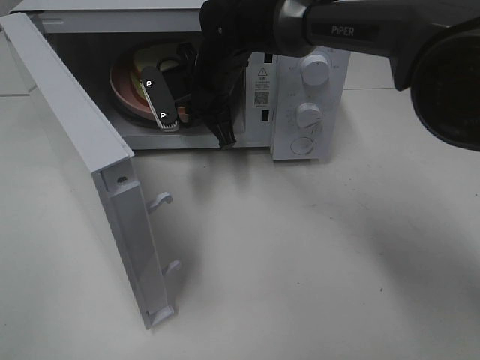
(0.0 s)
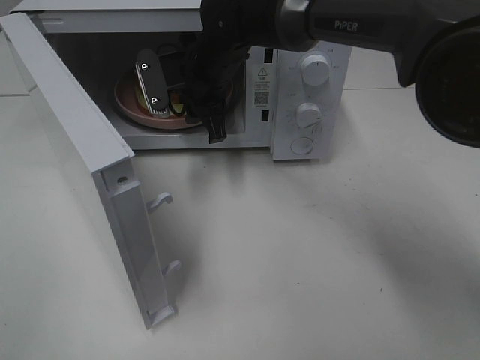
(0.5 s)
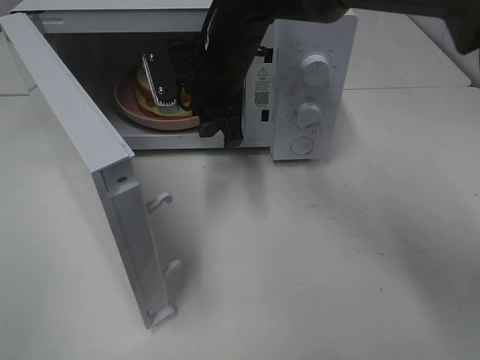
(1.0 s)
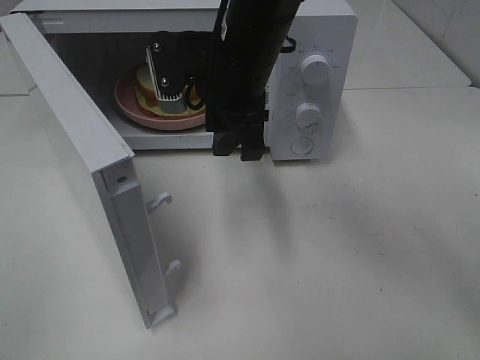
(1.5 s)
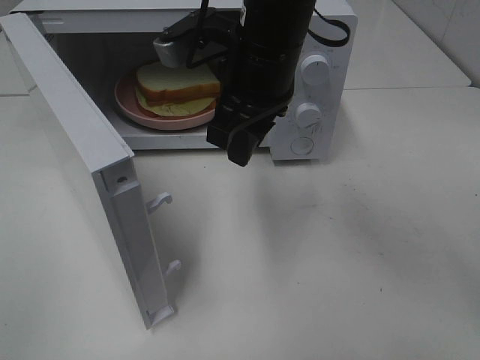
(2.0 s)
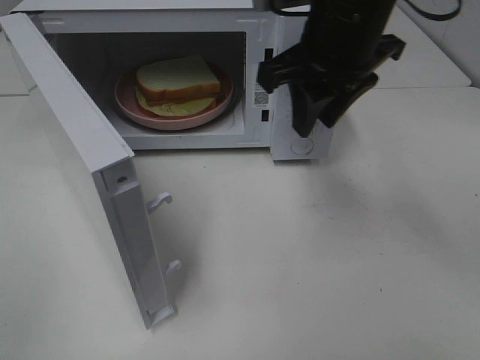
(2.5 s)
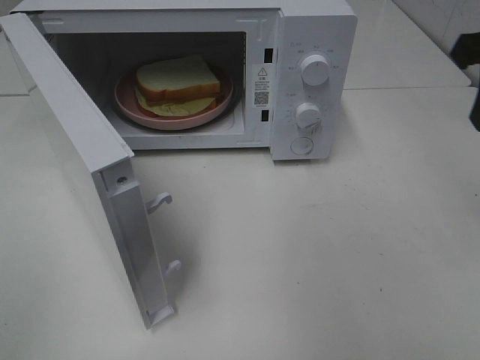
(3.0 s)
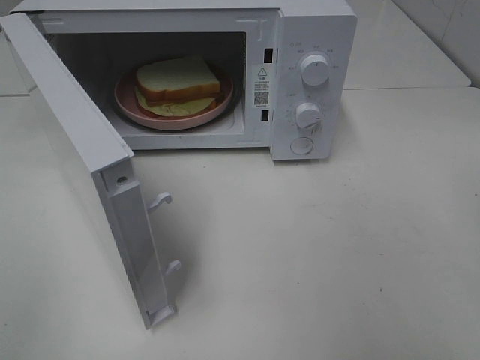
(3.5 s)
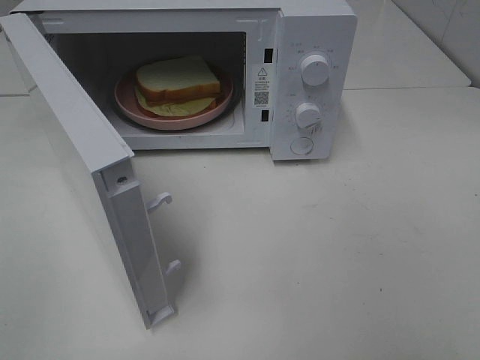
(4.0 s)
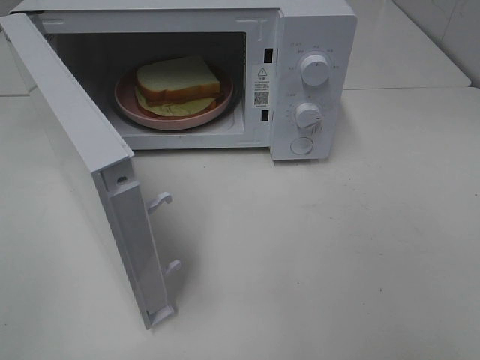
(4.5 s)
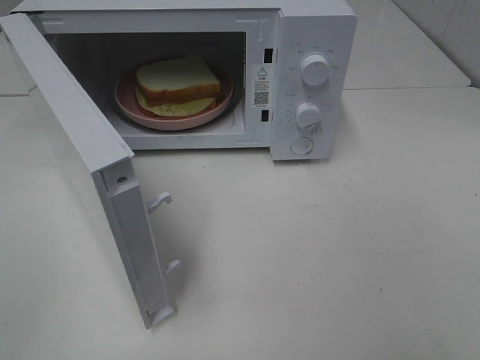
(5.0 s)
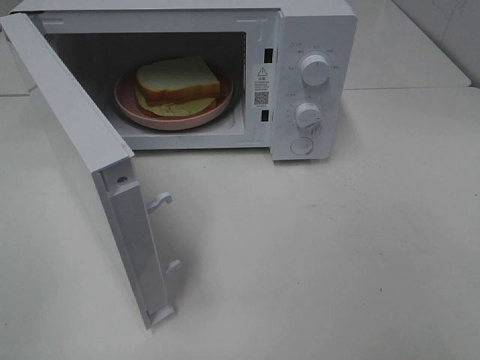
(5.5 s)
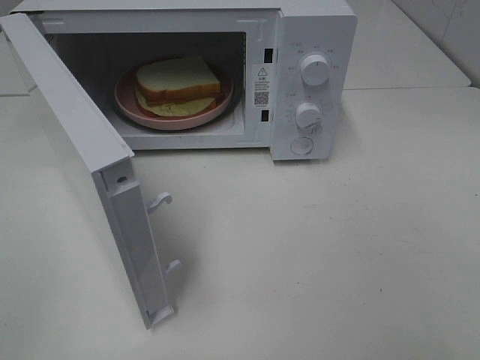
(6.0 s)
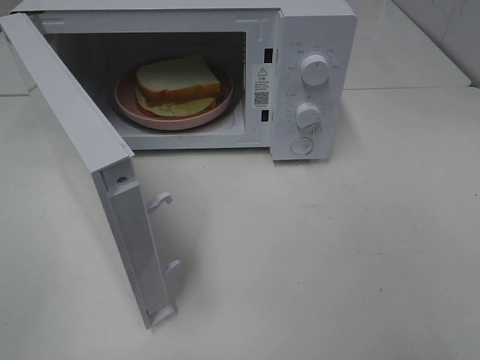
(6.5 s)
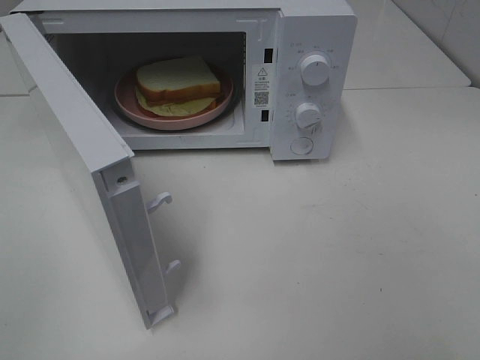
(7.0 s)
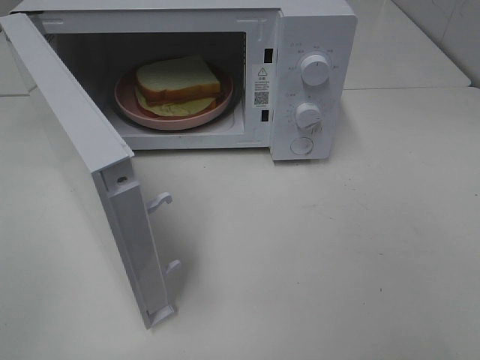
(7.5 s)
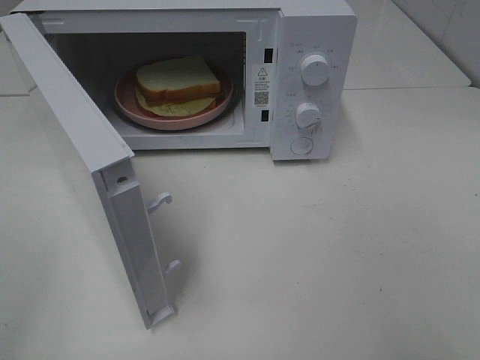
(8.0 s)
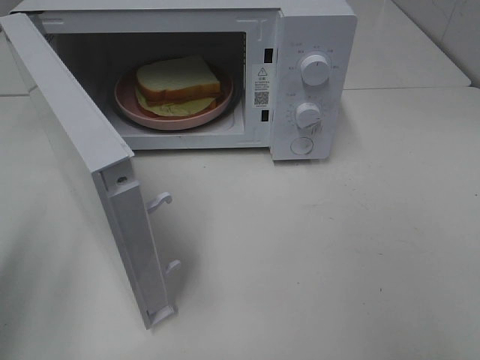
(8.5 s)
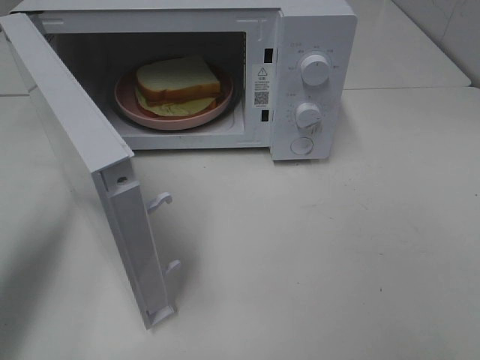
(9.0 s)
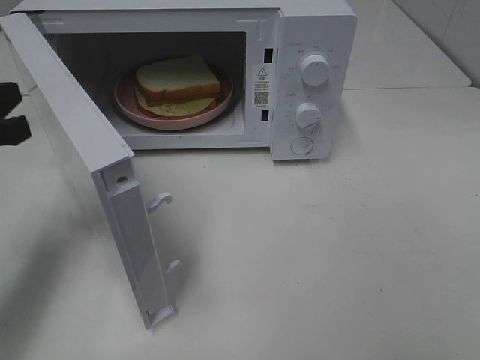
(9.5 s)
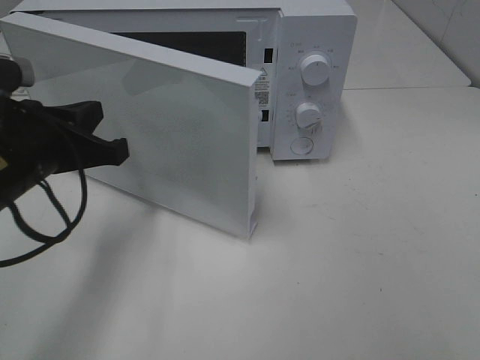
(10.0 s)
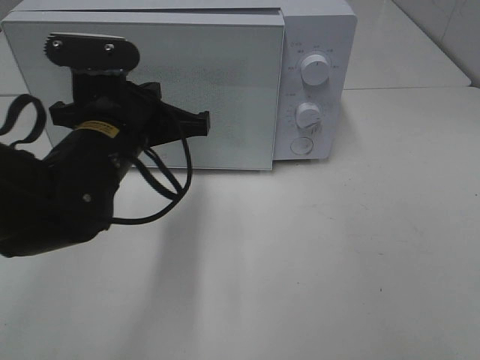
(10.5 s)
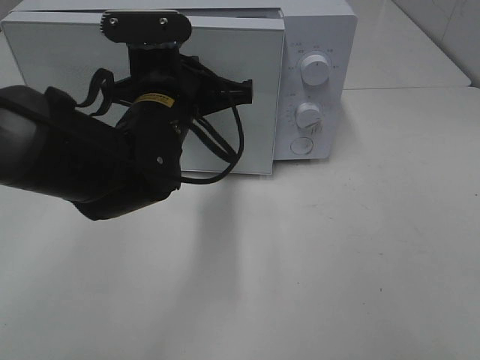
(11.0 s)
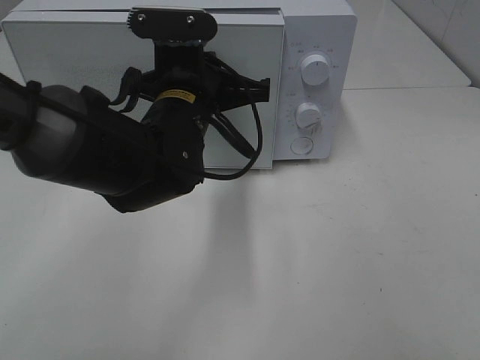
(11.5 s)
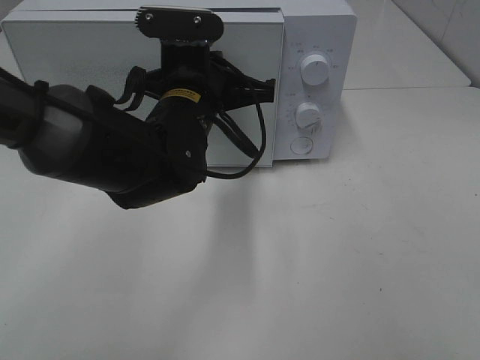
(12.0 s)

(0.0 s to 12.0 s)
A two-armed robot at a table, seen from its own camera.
Task of the whole recording: Heat Sandwich.
0.0 s - 2.0 s: The right gripper shifts approximately 15 cm backward, upward and to the right, and opens.
2.0 s - 4.0 s: The right gripper shifts approximately 35 cm to the right and backward.
8.0 s - 10.0 s: The left gripper moves forward, downward and to the right, roughly 30 cm, and closes.
10.0 s - 12.0 s: The left gripper is displaced to the right and forward by some 15 cm.

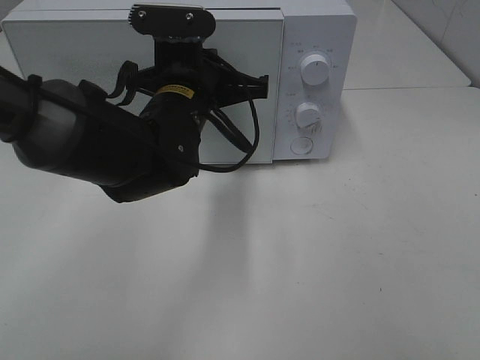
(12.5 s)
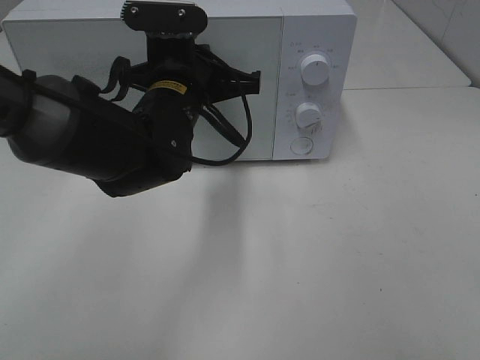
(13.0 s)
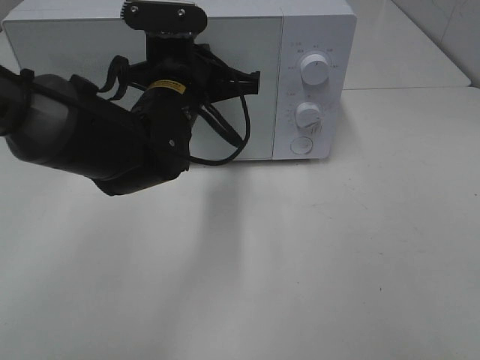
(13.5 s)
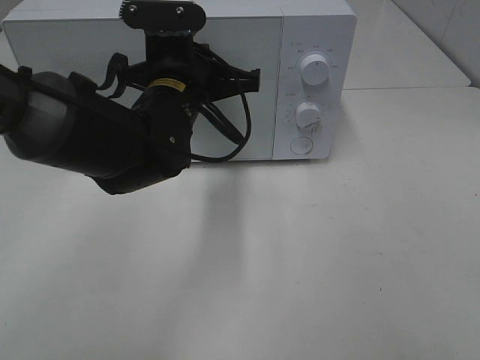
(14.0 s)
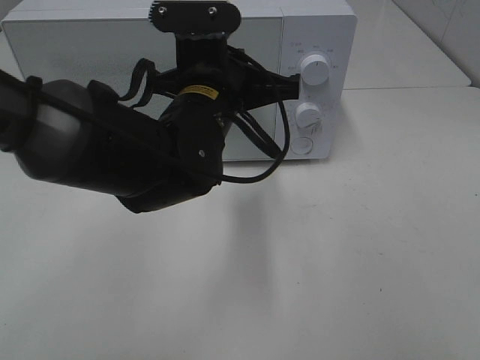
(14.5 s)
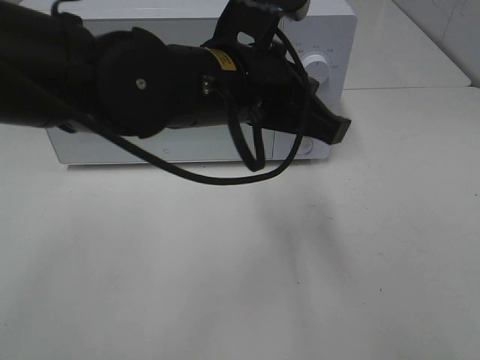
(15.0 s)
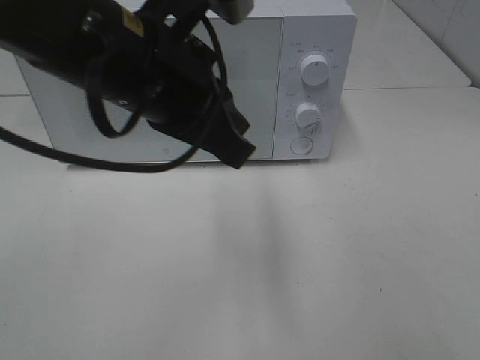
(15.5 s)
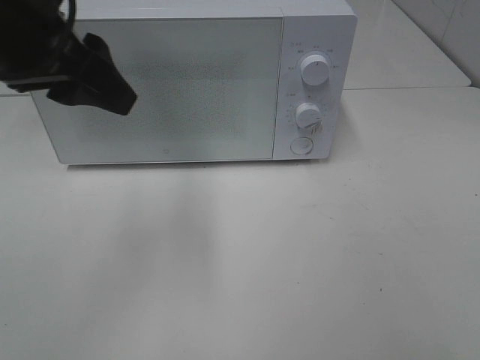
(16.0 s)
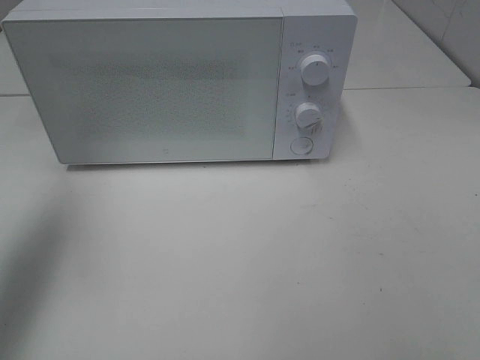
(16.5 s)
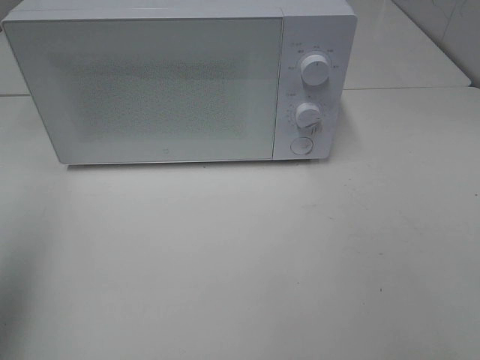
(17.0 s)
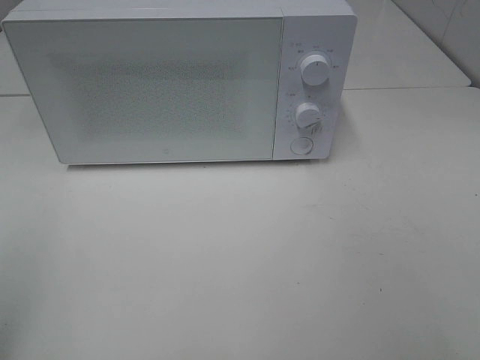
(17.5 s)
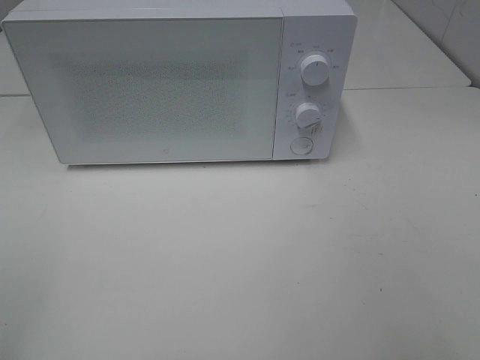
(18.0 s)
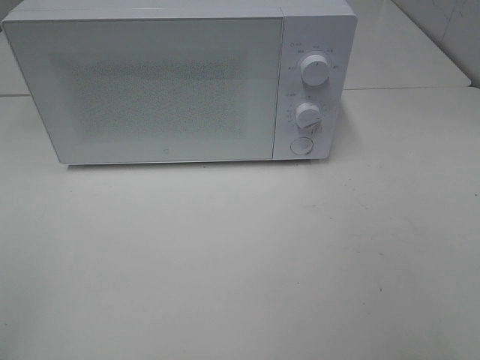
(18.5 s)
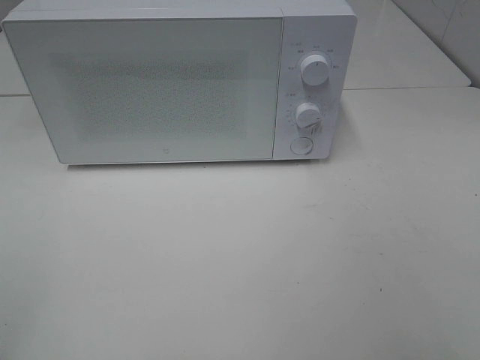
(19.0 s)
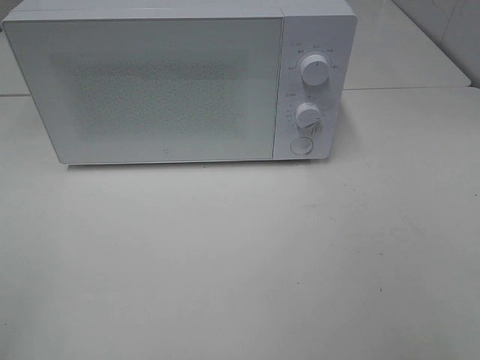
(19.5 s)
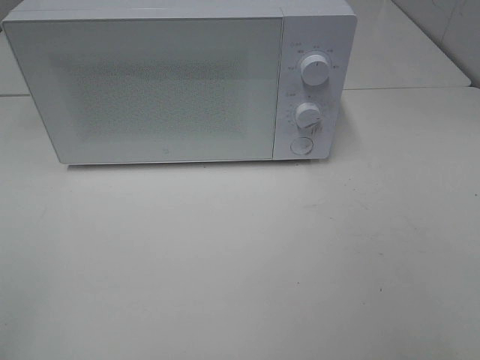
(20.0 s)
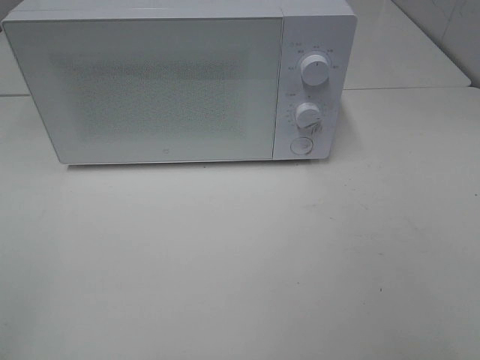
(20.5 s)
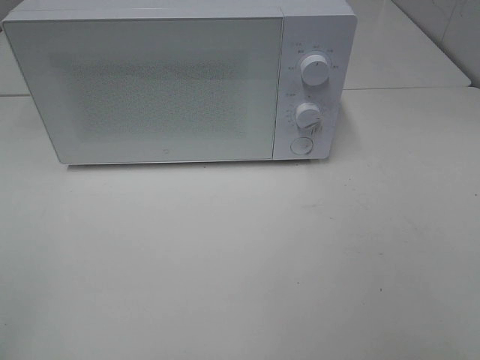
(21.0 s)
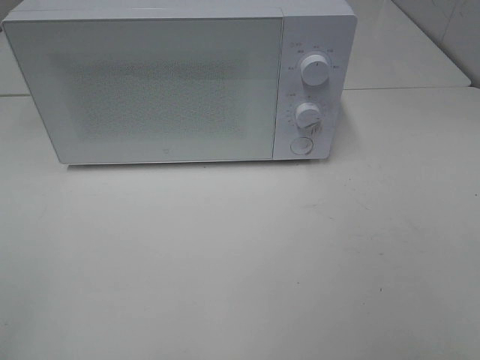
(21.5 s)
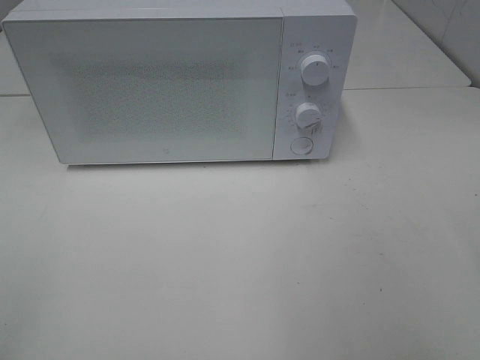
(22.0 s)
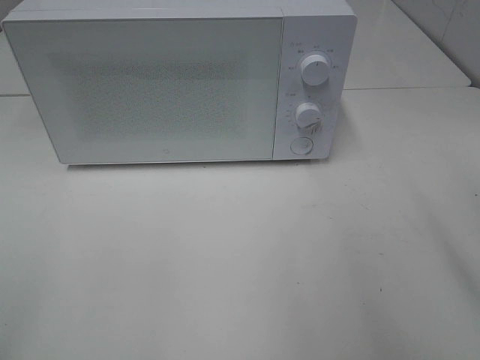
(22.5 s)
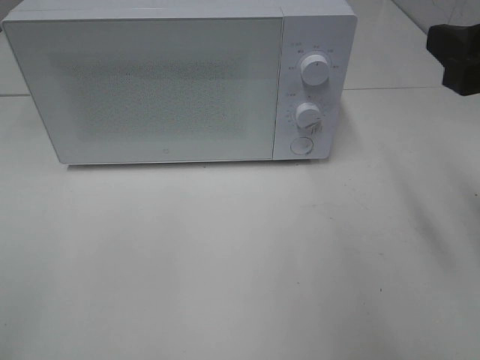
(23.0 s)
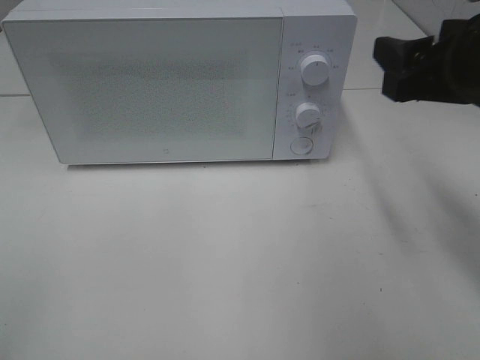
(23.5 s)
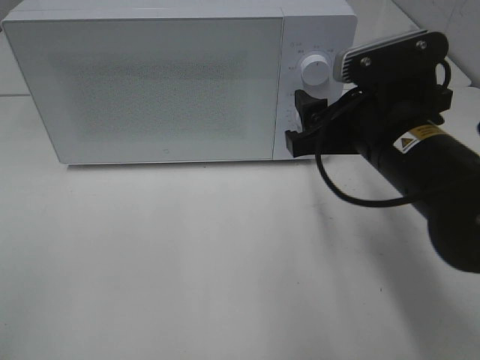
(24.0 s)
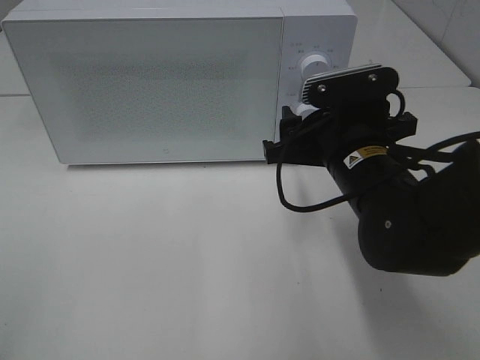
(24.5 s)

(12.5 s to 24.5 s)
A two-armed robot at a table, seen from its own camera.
Task of the whole recording: Heat Sandwich.
Step, 12.5 s - 14.5 s: Left hand: close the microwave door.
12.5 s - 14.5 s: The grippers make only small movements.
14.5 s - 16.5 s: The left gripper shifts about 30 cm to the left and upward, and opens up.
16.5 s - 18.5 s: The left gripper goes some 25 cm backward.
18.5 s - 20.5 s: Neither gripper changes place.
22.5 s - 24.5 s: The right gripper shifts some 25 cm downward, to the left and forward.

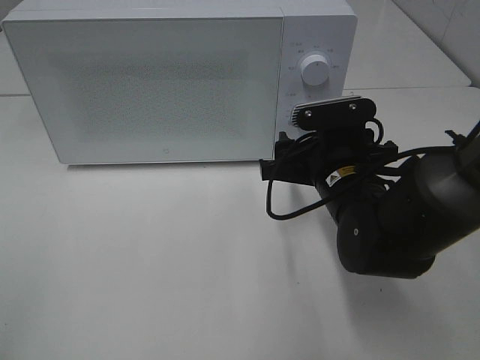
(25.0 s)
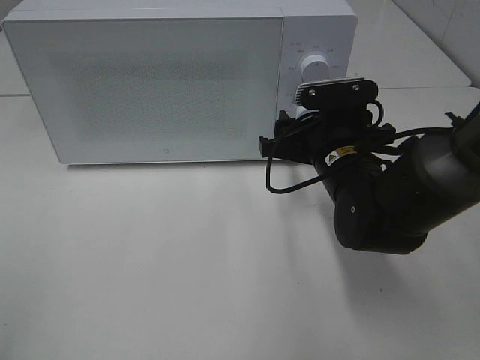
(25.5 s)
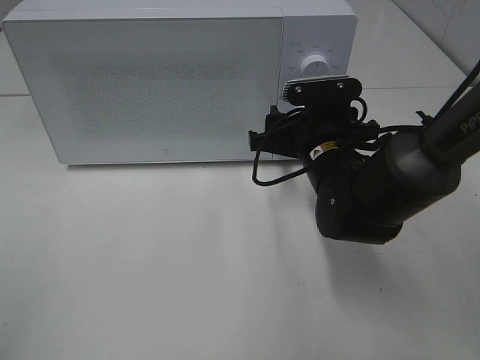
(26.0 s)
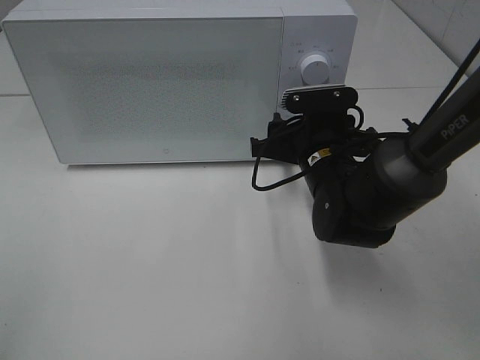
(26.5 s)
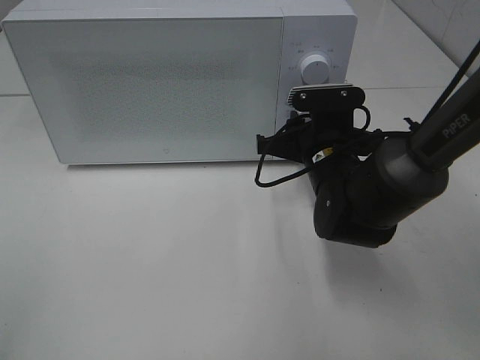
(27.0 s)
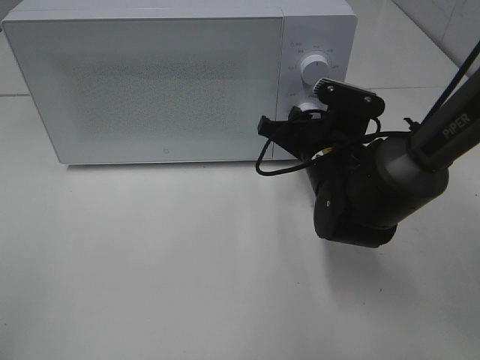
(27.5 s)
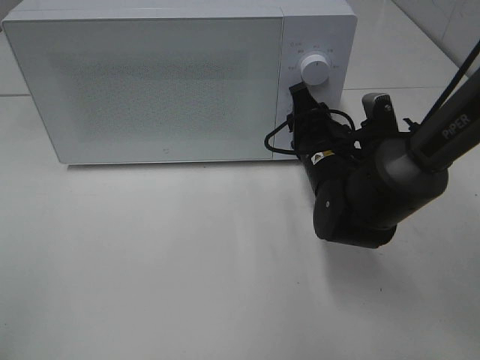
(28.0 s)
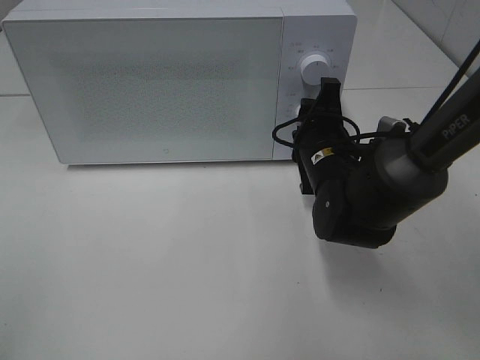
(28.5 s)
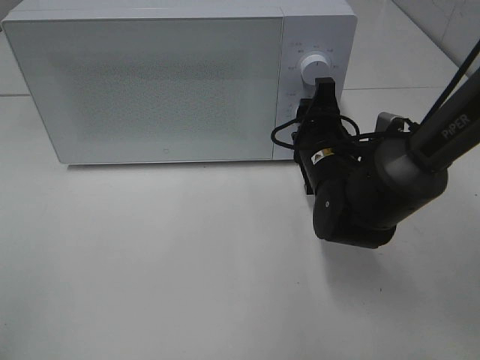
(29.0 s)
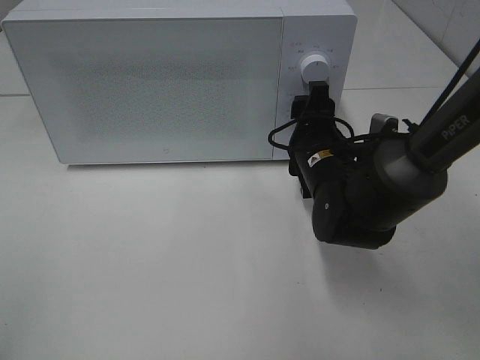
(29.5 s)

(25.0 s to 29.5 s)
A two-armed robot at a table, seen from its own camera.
Task of the whole recording: Heat Sandwich.
25.0 s - 27.0 s: The right gripper closes its fingers.
